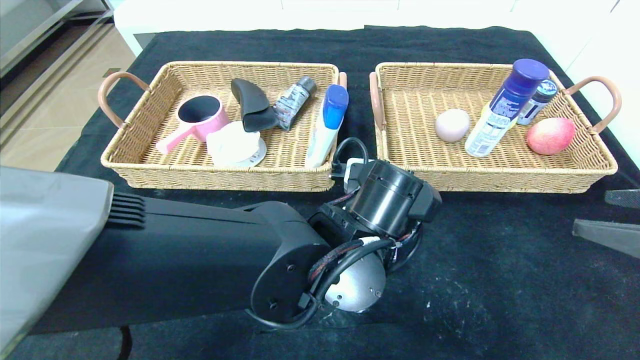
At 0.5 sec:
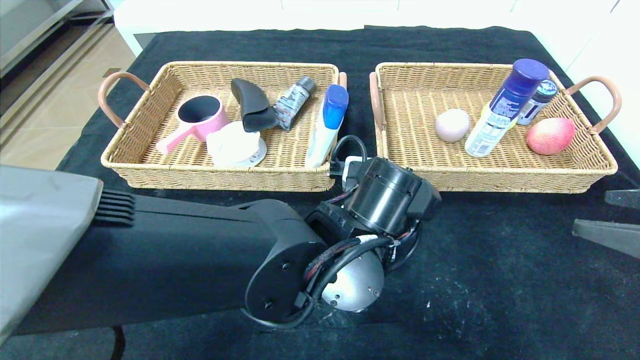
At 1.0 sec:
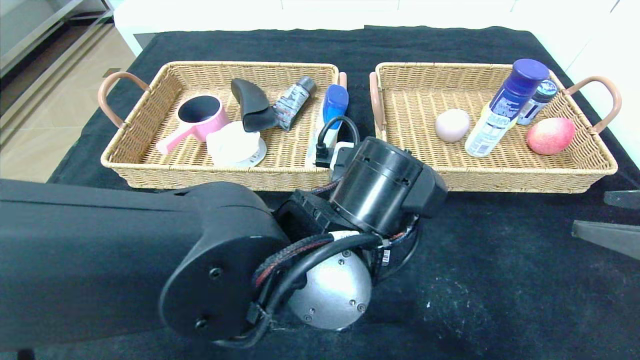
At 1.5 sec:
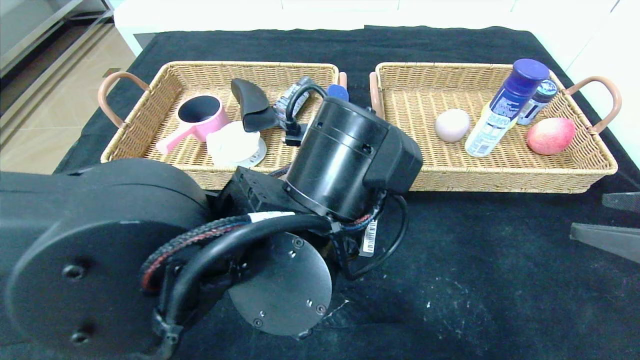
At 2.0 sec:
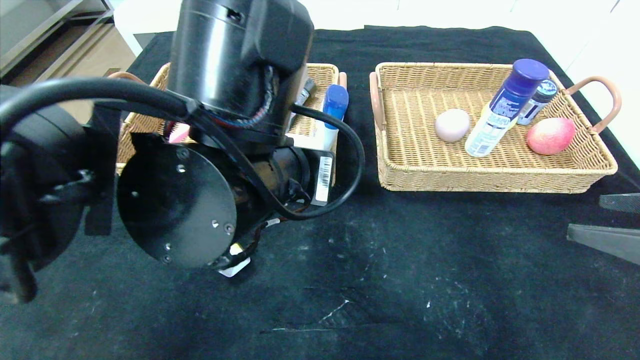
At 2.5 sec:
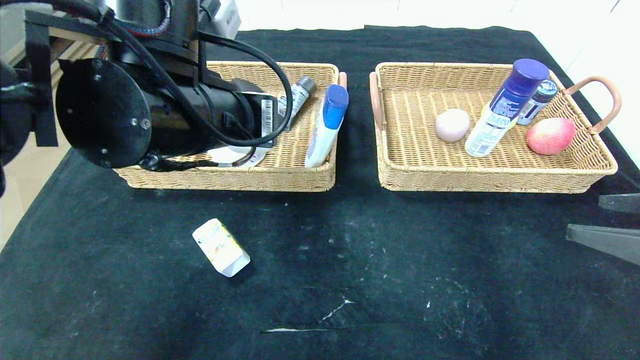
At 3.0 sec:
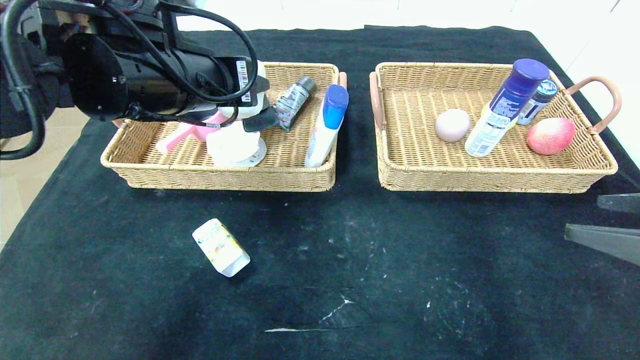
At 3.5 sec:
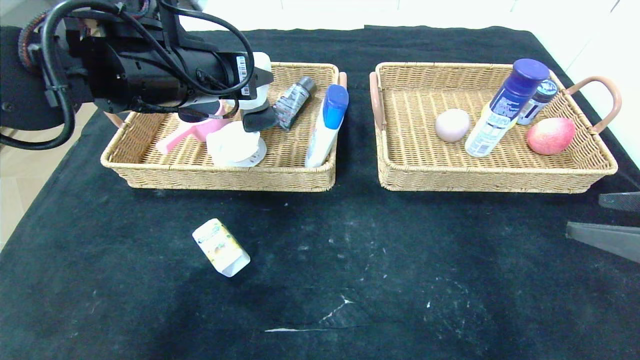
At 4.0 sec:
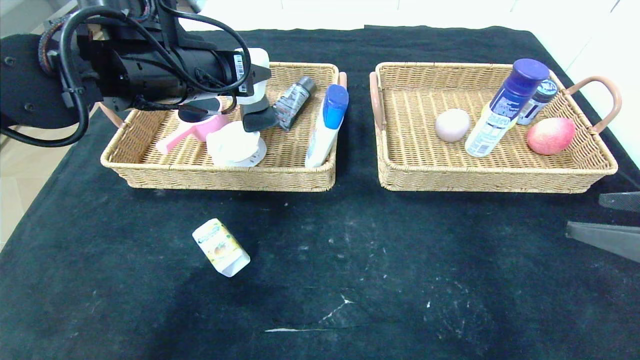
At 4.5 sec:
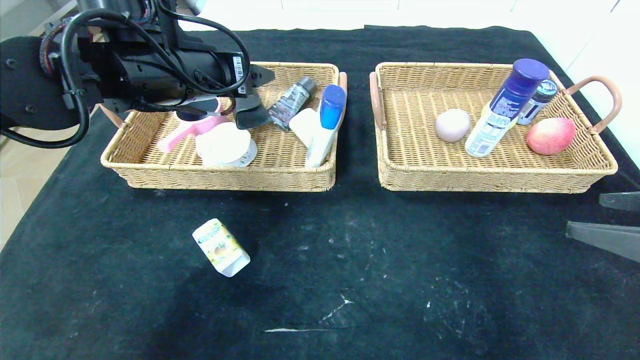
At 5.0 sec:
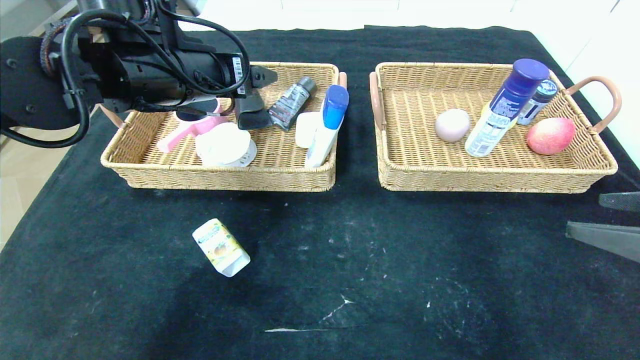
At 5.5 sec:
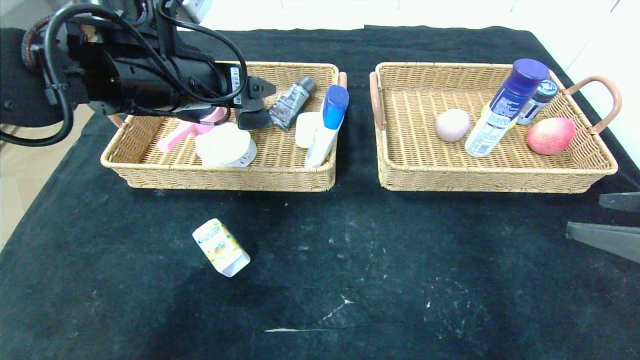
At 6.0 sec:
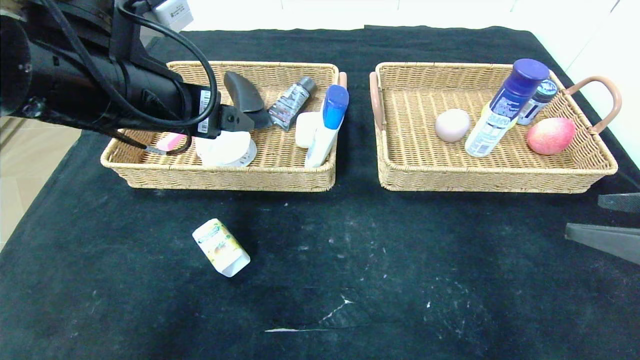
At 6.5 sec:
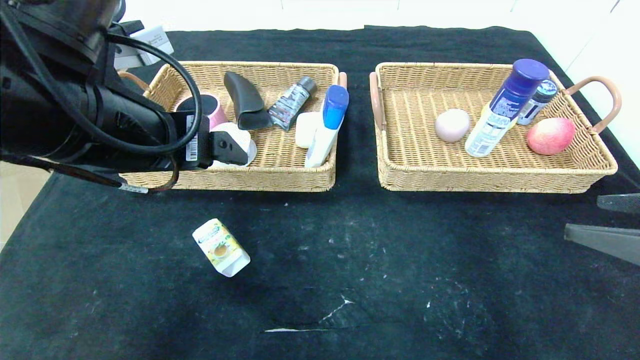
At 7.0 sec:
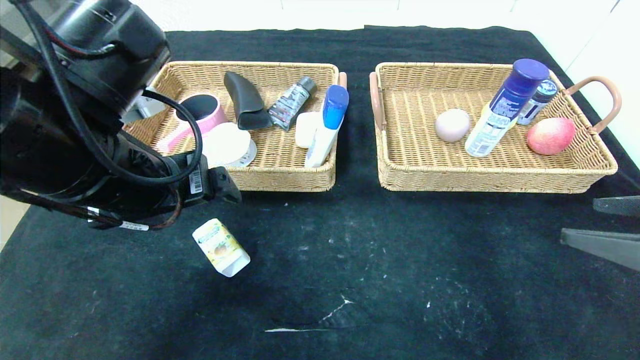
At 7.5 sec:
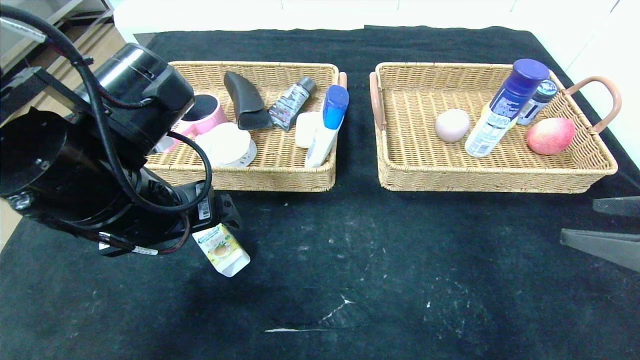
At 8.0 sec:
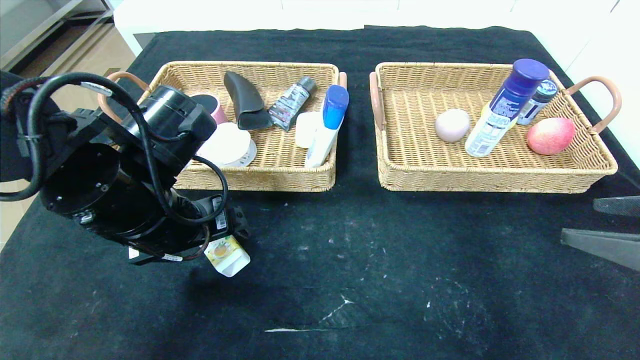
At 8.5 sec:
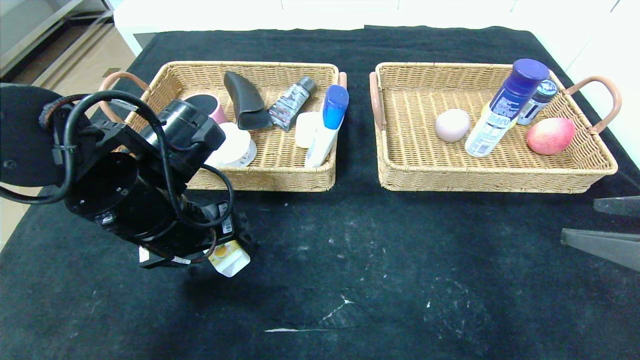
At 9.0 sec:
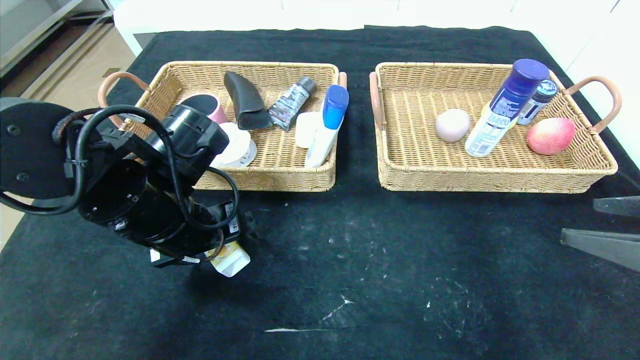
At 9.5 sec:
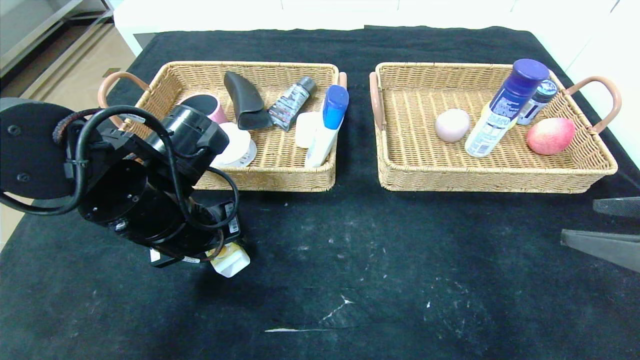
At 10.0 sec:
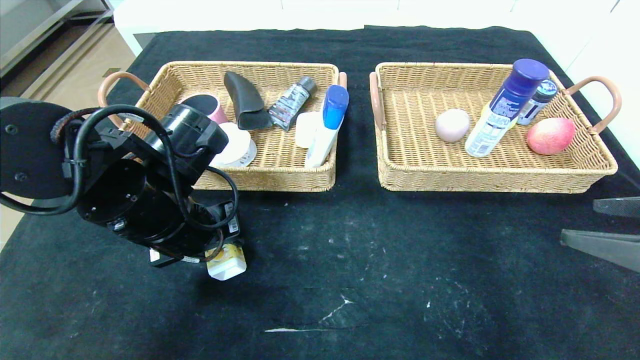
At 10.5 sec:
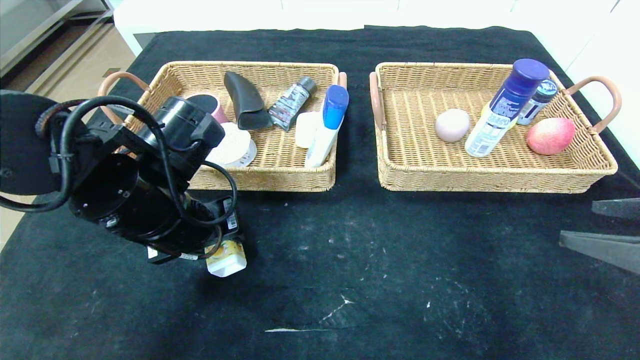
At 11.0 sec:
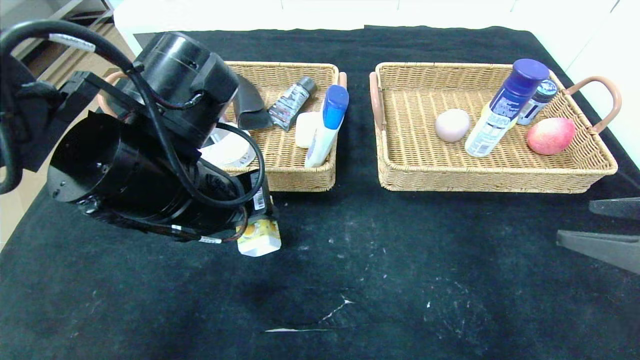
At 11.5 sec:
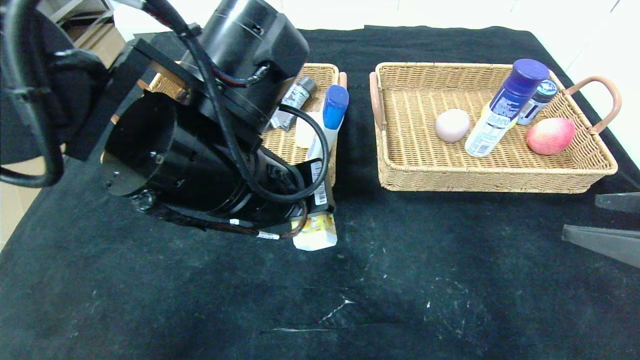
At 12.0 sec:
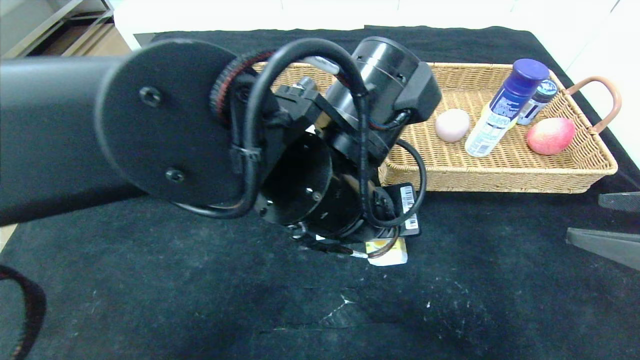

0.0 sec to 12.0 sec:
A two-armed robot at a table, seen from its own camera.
Step, 0.0 sec to 4.0 sec: Grasp the white eraser and put it in the left basket.
0.0 sec to 2.0 sec: The left gripper moves upward and to the left, roughly 15 cm.
2.0 sec to 4.0 sec: The left gripper travels forward and to the left by some 15 cm.
4.0 sec to 6.0 sec: The left gripper travels backward by roughly 10 cm, and opens its fingers.
6.0 sec to 8.0 sec: The left gripper goes roughly 10 cm downward.
8.0 sec to 10.0 sec: The left gripper closes up.
10.0 sec to 12.0 sec: The left gripper is displaced to the right by about 20 cm.

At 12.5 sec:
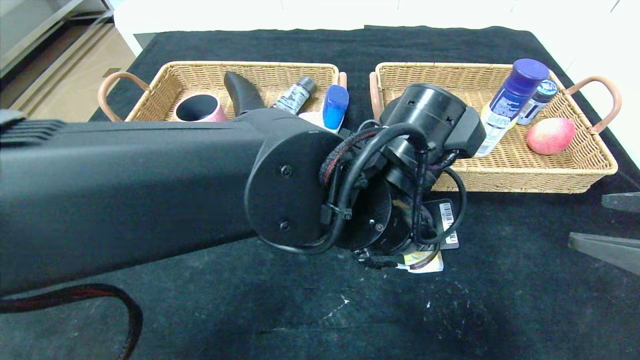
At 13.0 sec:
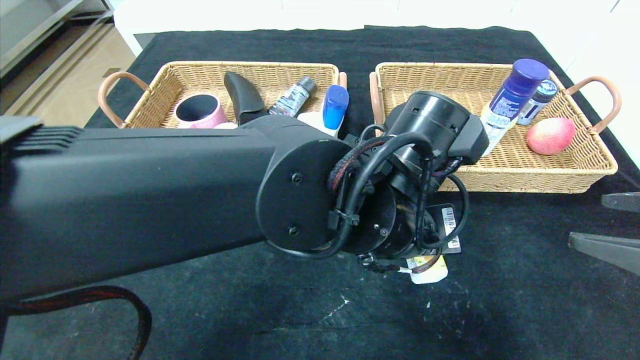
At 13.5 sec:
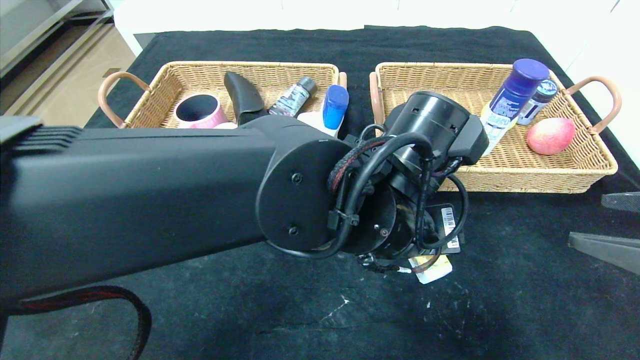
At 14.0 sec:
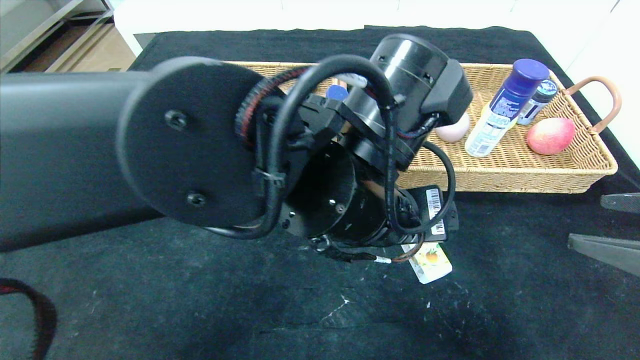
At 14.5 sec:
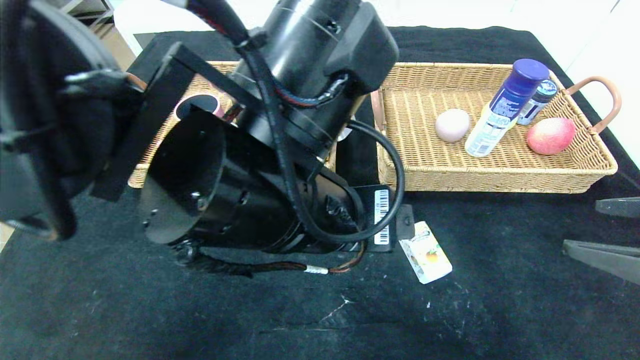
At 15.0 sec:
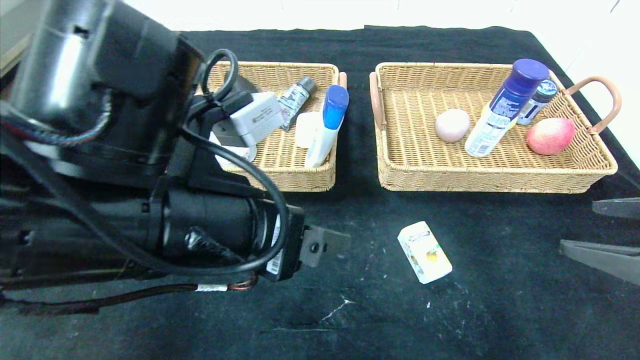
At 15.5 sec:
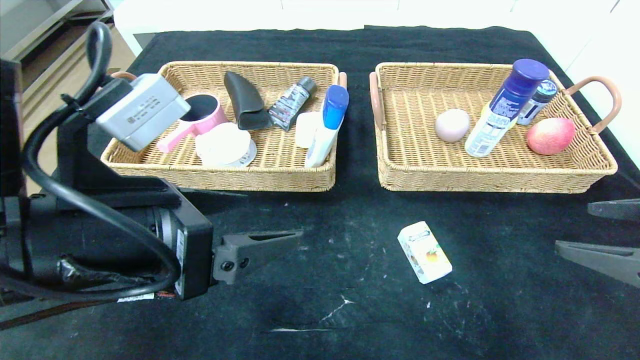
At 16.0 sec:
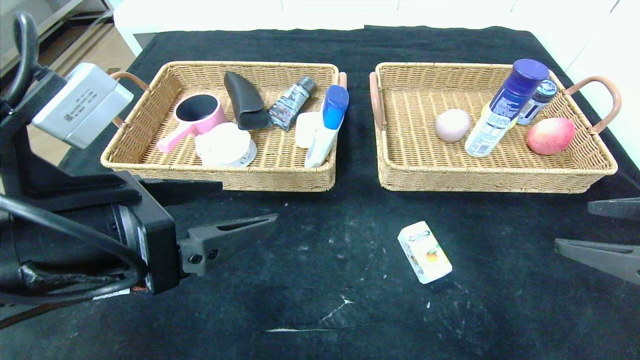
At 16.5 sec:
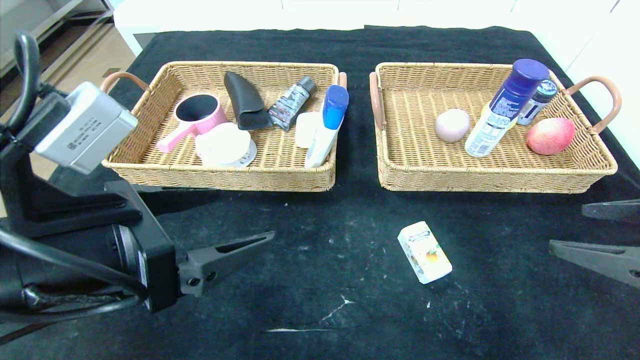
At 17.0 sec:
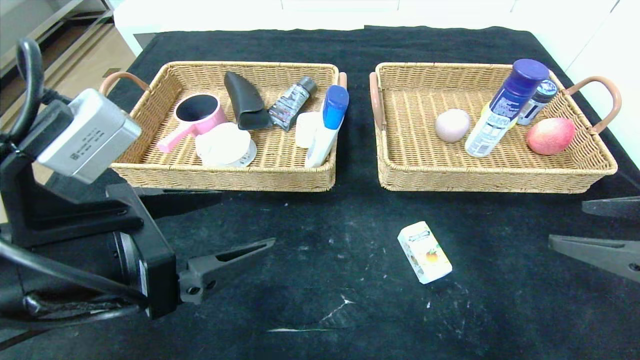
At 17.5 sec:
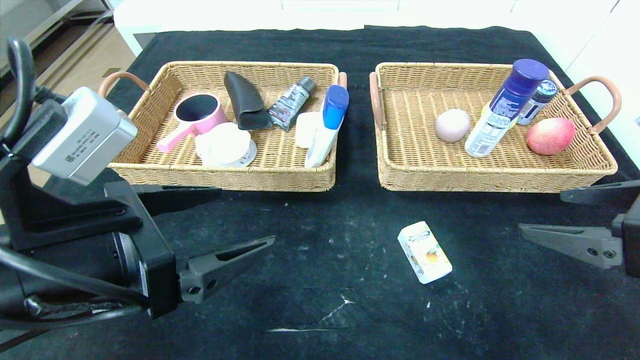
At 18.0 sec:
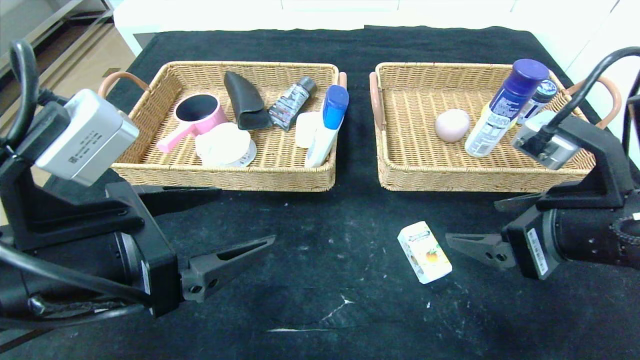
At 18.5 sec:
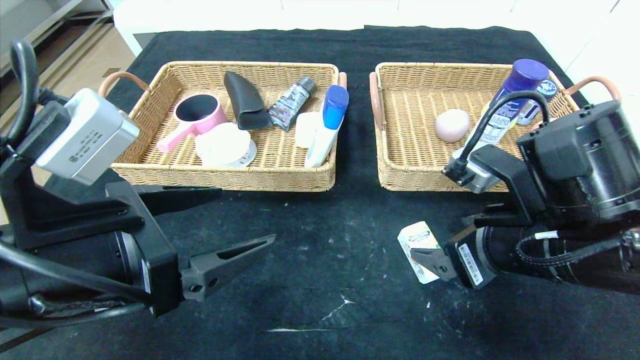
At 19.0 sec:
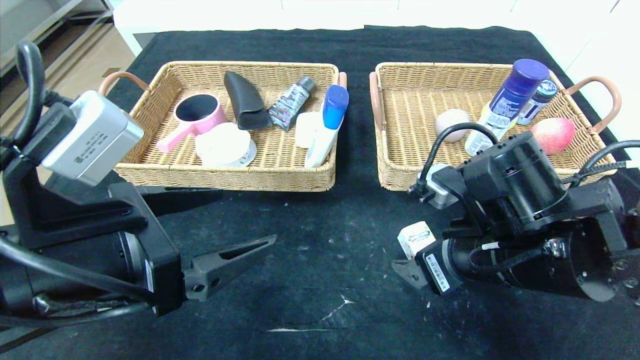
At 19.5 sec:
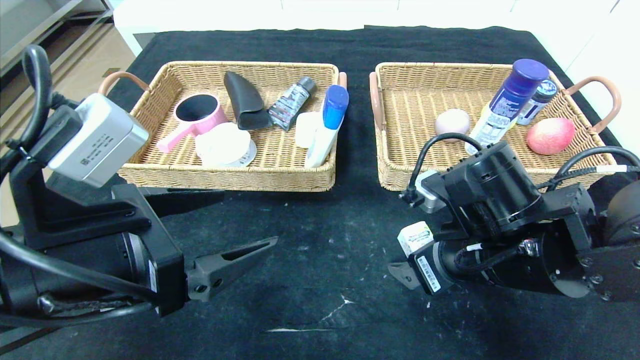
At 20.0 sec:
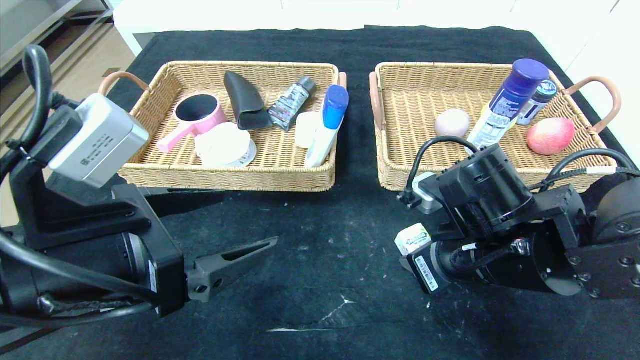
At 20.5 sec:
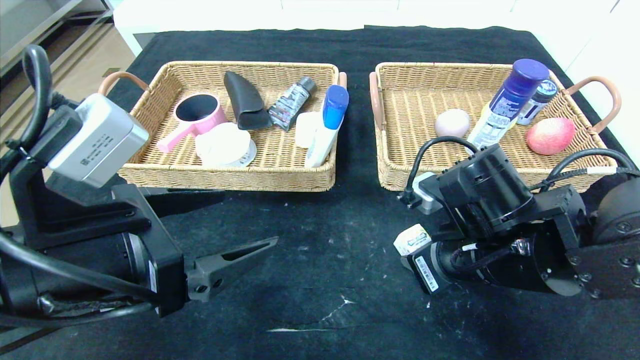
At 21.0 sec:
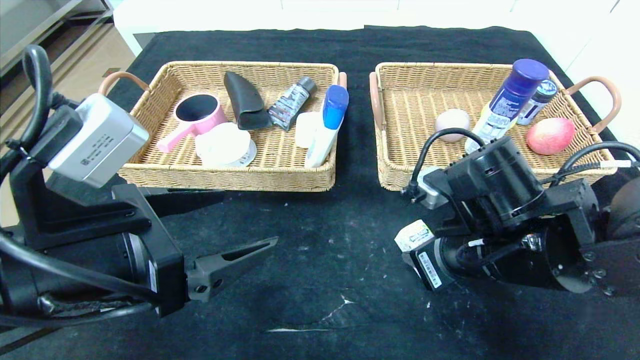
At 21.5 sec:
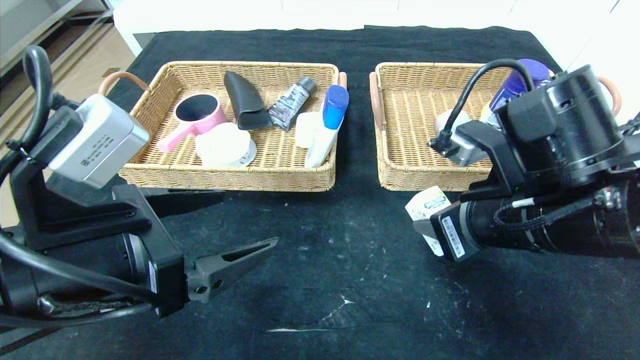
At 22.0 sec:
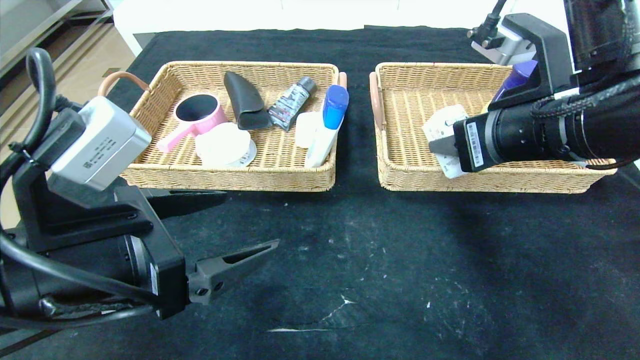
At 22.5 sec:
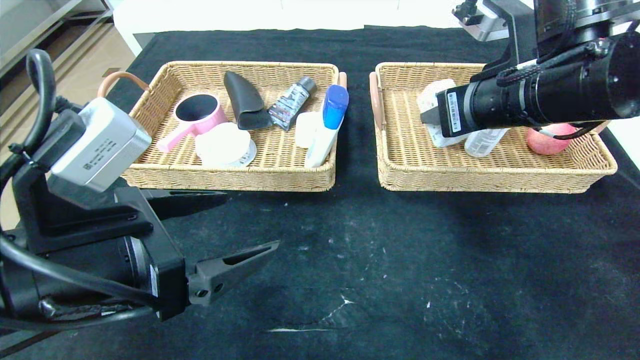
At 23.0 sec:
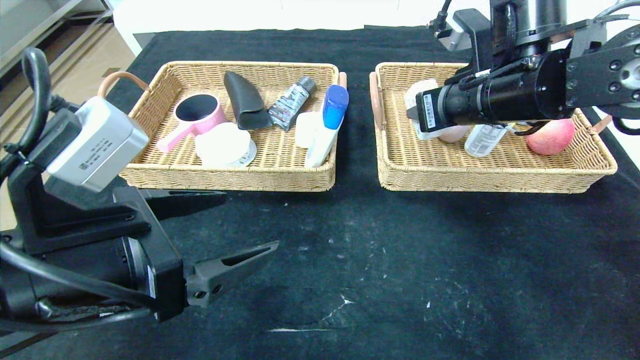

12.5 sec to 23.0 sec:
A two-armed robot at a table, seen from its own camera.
12.5 sec to 14.5 sec: The left gripper goes about 10 cm to the left, and opens its fingers.
14.5 sec to 16.5 sec: The left gripper goes roughly 15 cm to the left.
16.5 sec to 19.0 sec: The right gripper moves to the left and forward, about 20 cm.
19.0 sec to 21.0 sec: The right gripper closes its fingers.
21.0 sec to 23.0 sec: The right gripper goes roughly 15 cm upward and forward.
